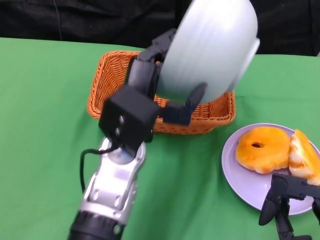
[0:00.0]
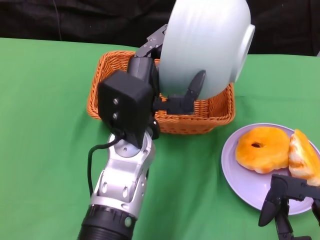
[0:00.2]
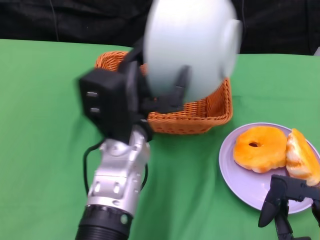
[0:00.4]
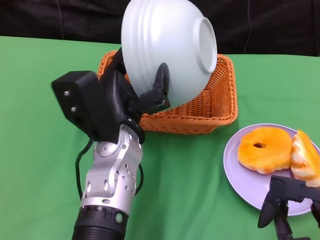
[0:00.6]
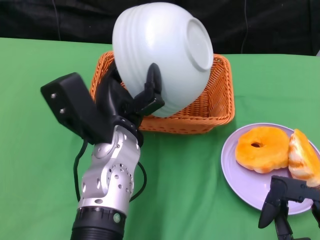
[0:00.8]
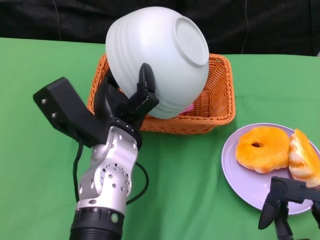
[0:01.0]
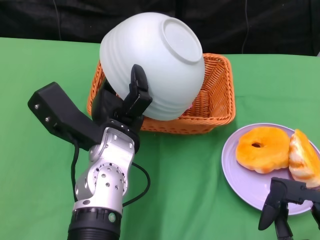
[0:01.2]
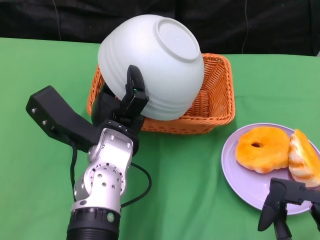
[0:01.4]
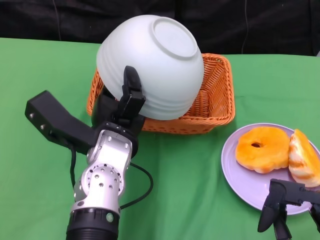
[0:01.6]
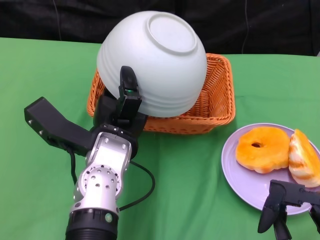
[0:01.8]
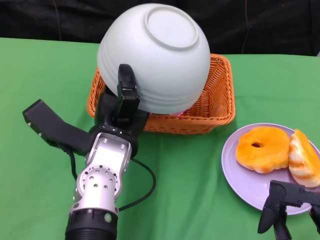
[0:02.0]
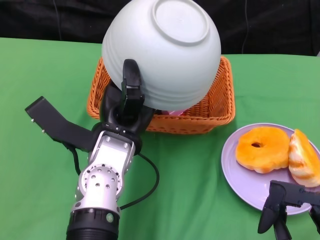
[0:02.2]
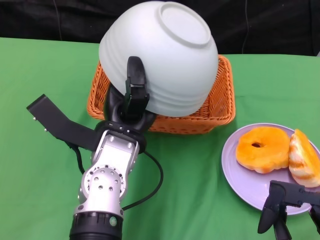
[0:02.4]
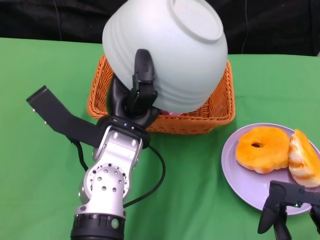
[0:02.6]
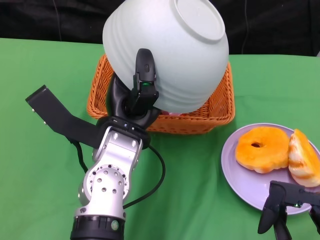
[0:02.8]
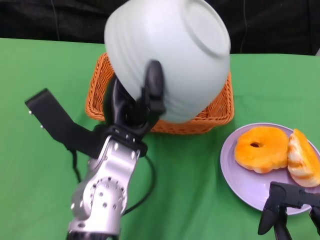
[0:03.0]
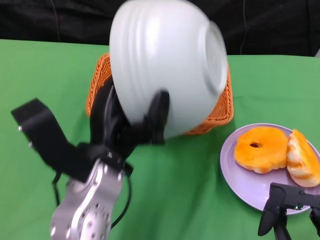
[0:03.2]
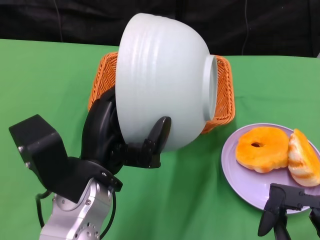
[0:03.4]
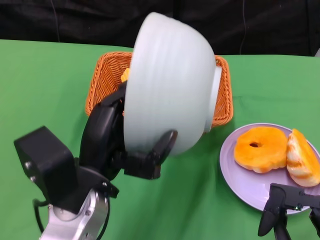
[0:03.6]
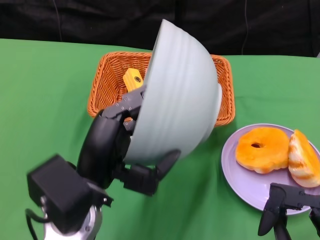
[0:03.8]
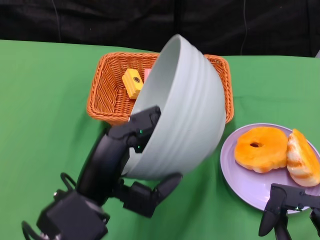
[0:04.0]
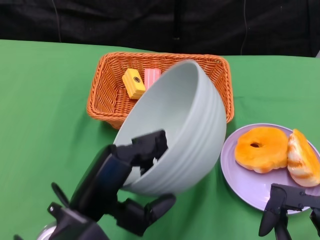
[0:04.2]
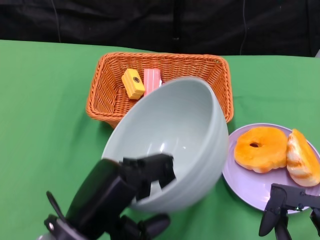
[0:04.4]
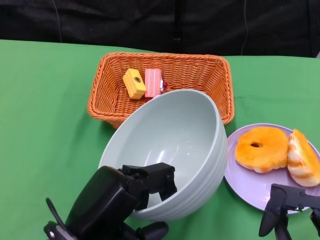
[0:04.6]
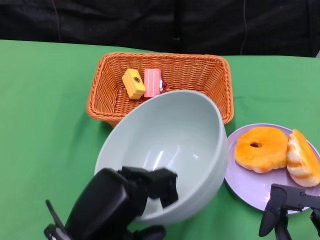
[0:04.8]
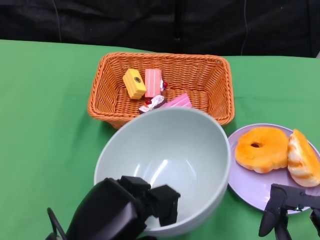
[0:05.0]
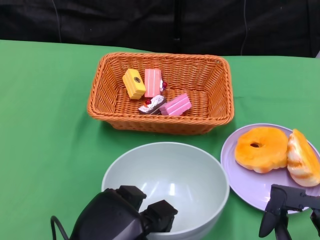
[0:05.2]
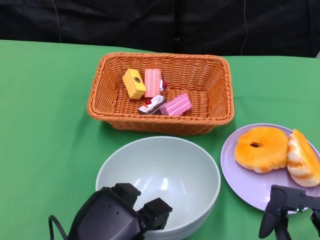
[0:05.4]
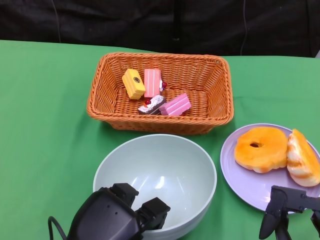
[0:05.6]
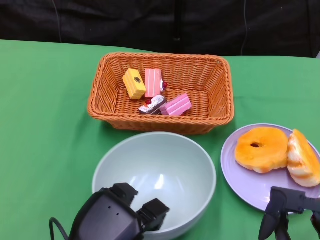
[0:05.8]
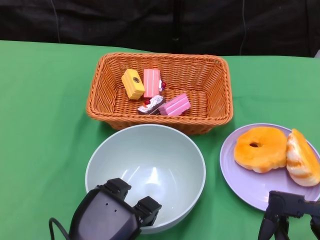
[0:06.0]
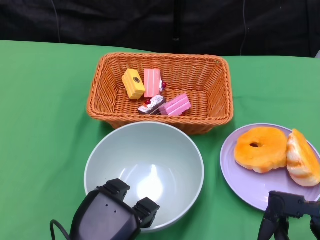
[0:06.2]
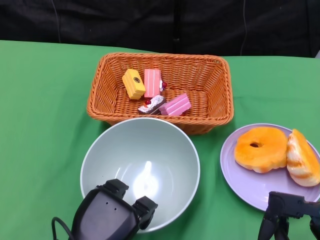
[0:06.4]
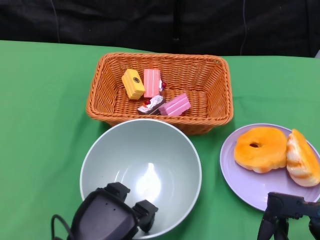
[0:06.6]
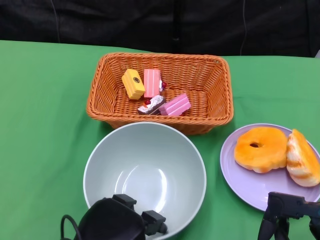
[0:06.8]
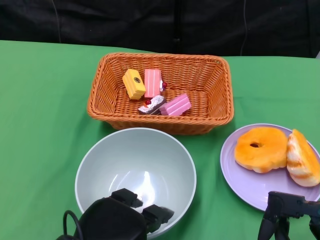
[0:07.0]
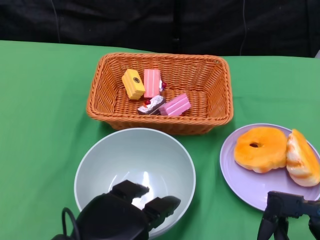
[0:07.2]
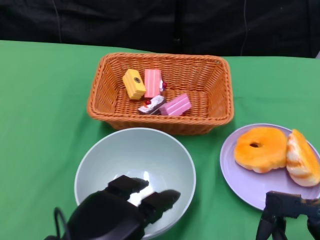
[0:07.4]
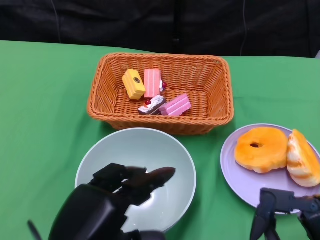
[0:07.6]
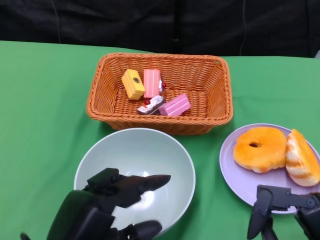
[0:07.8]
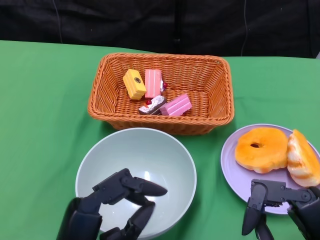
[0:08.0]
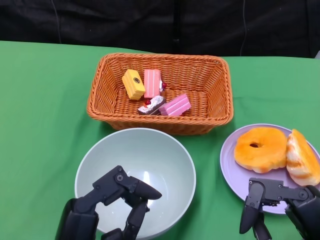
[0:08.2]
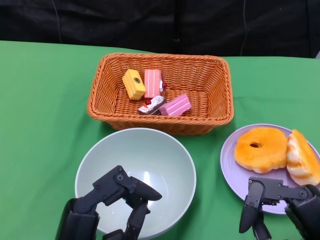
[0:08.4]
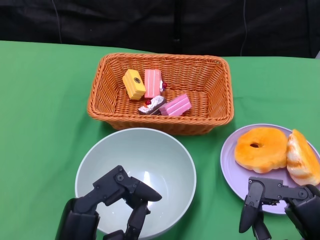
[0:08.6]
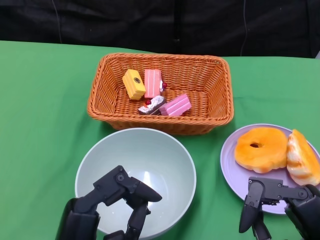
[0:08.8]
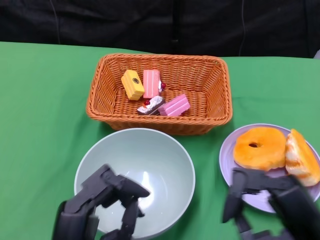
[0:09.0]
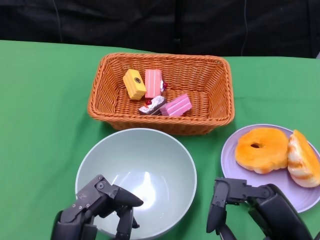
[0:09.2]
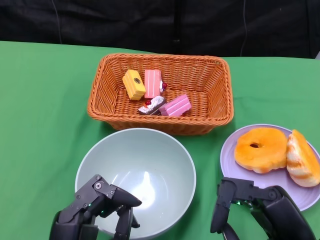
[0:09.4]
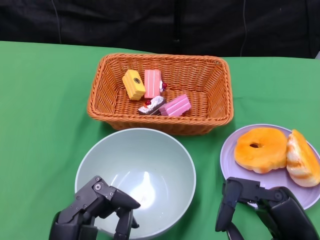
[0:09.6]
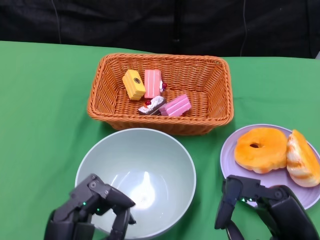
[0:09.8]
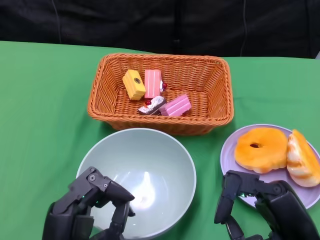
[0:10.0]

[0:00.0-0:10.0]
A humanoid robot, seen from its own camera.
Step, 0:00.0 to 0:03.0: Pour the cake into the basket with the left gripper.
Step, 0:03.2 to 0:07.0: Place the bowl on the table with the left gripper.
0:02.8 to 0:04.2: The left hand travels backward and to the left by roughly 10 cm.
0:04.2 to 0:05.8: The left hand shifts about 5 cm downward.
0:08.6 to 0:10.0: The hands move only a little.

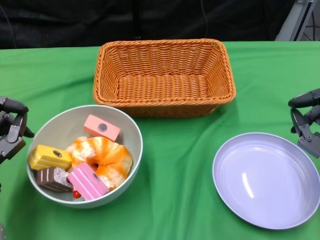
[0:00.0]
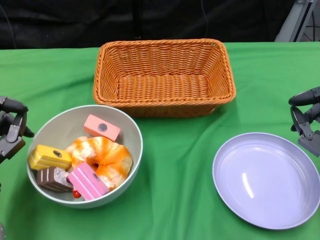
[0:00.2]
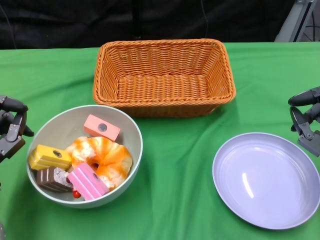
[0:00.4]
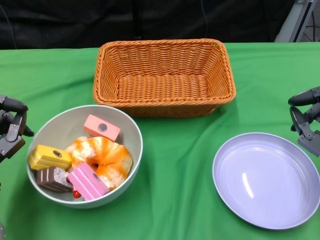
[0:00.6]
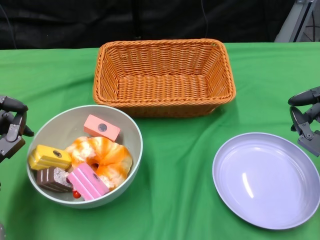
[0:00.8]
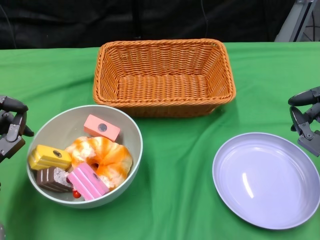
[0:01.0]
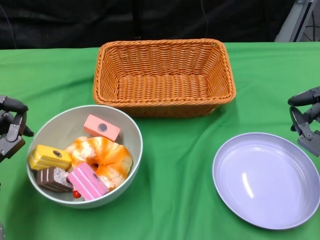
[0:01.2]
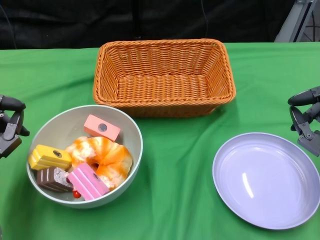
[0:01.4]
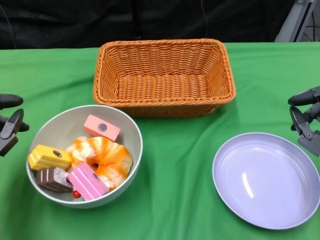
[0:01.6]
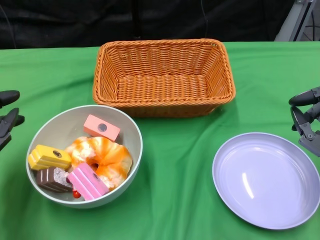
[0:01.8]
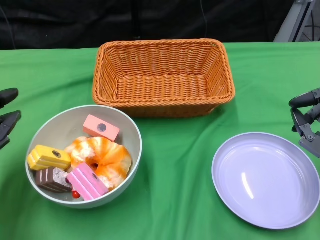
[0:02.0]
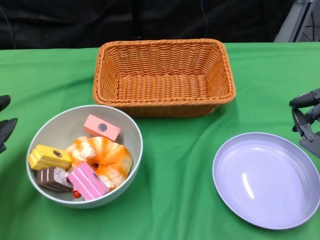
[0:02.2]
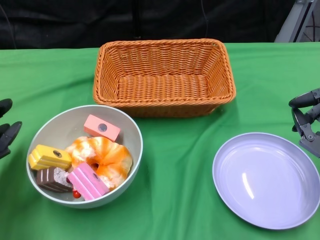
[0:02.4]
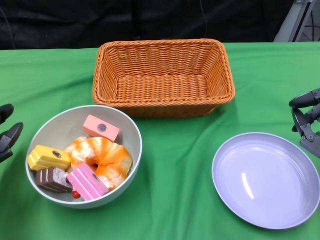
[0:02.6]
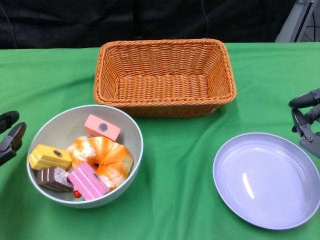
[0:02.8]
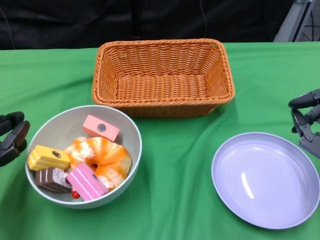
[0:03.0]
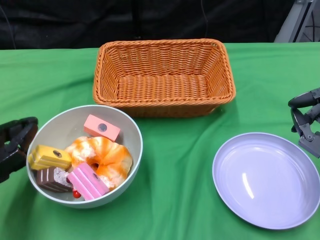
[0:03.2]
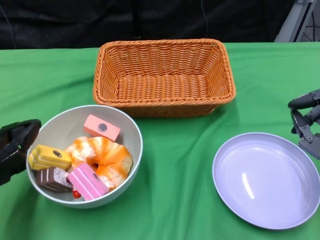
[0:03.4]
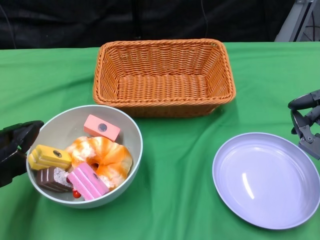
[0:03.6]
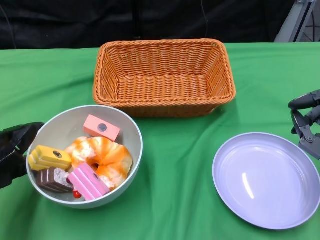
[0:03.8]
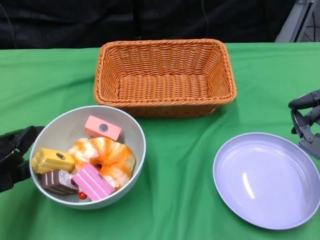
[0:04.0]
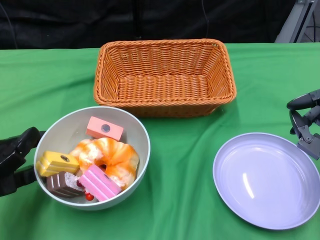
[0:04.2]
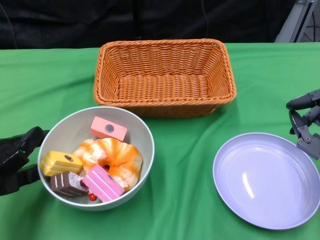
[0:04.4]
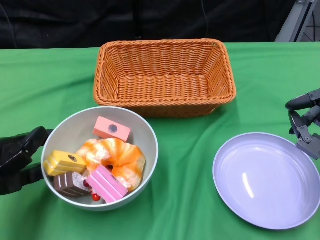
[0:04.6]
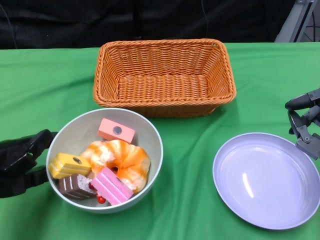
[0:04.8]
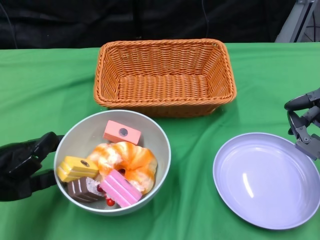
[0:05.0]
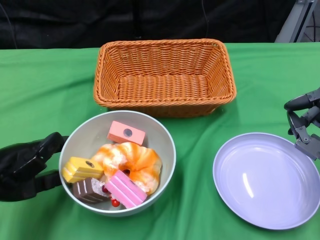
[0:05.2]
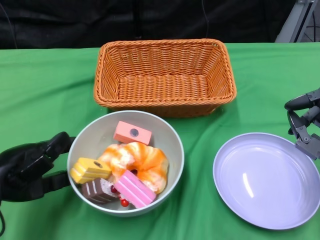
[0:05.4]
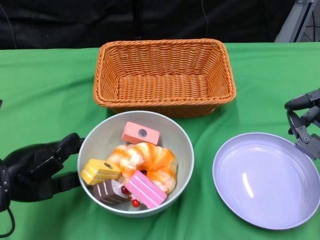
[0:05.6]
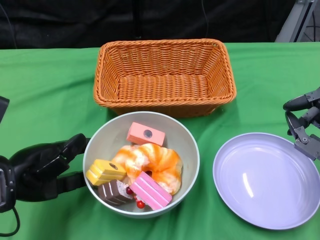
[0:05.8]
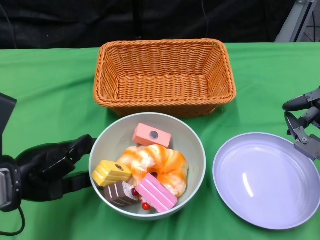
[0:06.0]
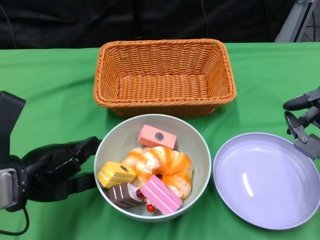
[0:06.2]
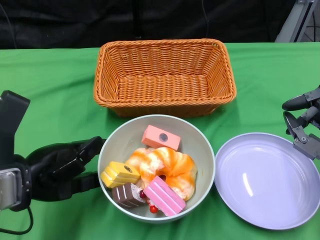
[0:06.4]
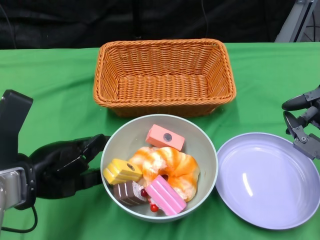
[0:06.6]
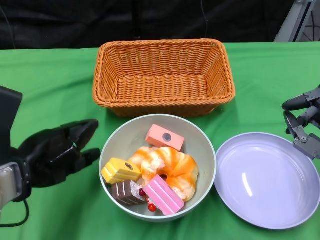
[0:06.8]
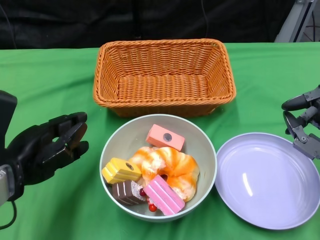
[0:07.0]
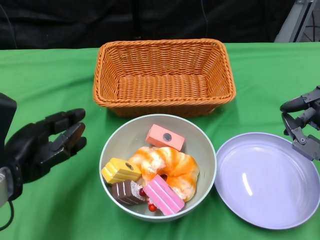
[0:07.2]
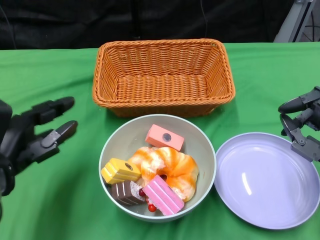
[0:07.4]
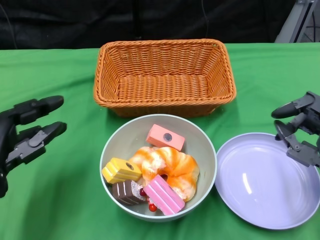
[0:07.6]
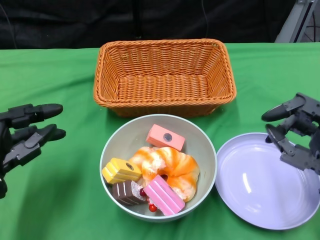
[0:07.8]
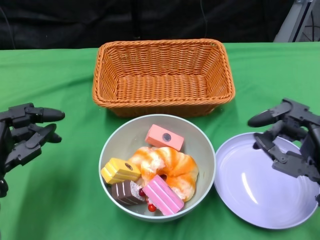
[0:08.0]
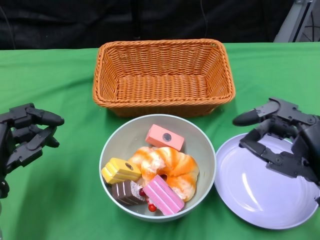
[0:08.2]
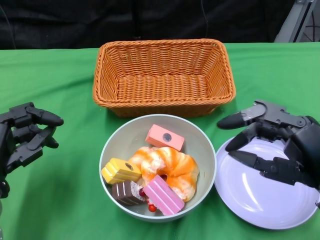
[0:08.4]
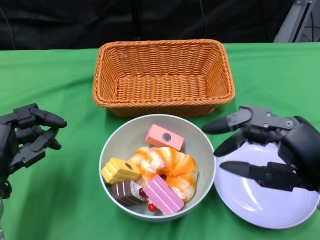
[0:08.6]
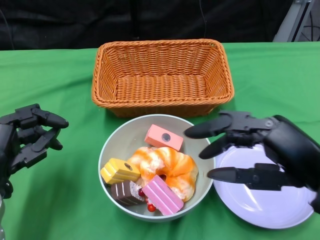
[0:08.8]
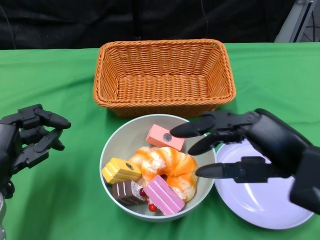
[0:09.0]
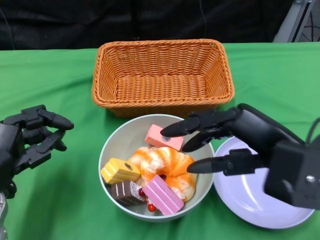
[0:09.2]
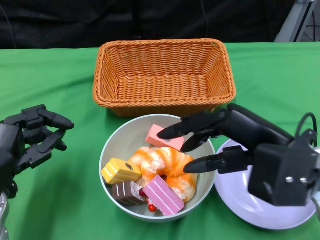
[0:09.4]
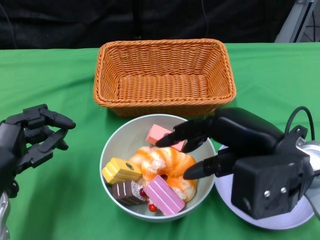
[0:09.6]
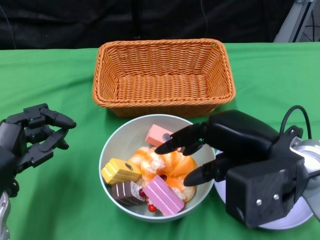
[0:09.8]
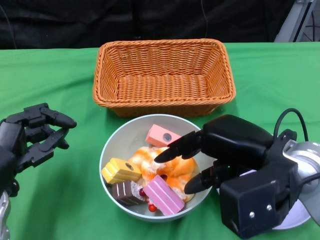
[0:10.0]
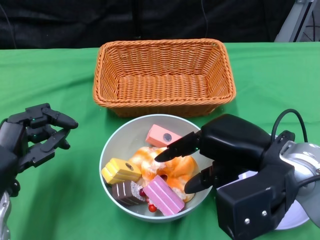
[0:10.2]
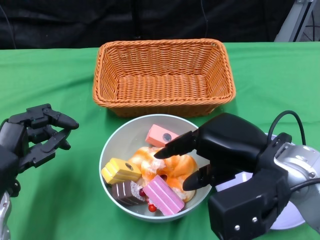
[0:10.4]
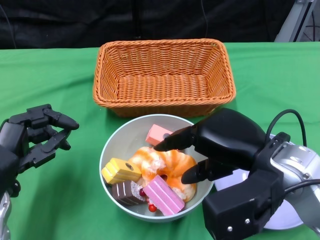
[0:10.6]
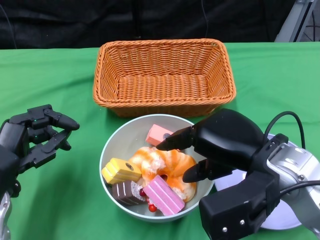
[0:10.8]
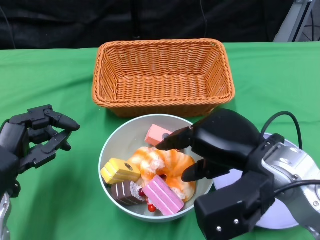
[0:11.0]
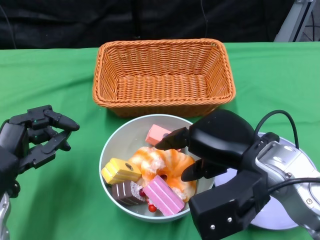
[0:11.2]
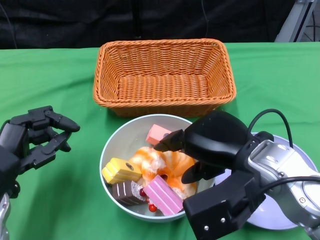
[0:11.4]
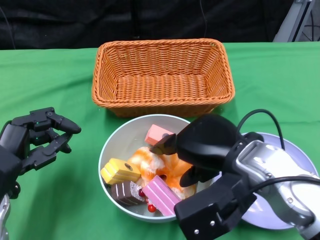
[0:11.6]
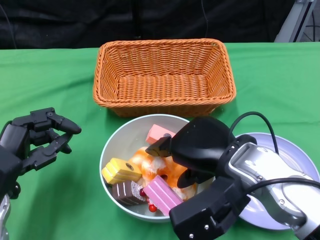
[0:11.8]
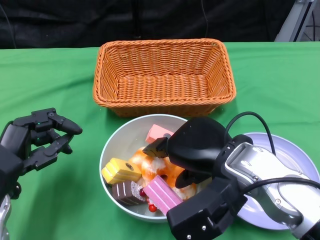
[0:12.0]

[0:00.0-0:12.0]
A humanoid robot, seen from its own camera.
Step, 0:00.0 to 0:07.6: Push the bowl to the center of the table using the left gripper.
0:04.4 to 0:06.0: The left hand moves to the right, roughly 5 cm.
0:07.6 to 0:09.0: The right hand heads upward and to the left, covering roughly 10 cm.
0:09.0 to 0:10.4: The right hand shifts by about 5 cm.
0:10.4 to 0:12.0: The right hand ends up some 5 cm from where it was.

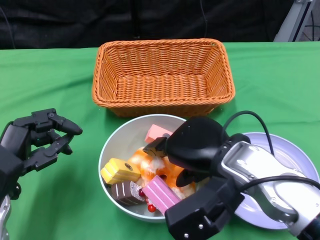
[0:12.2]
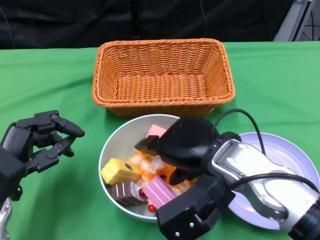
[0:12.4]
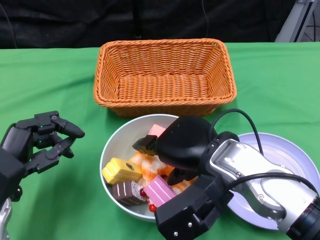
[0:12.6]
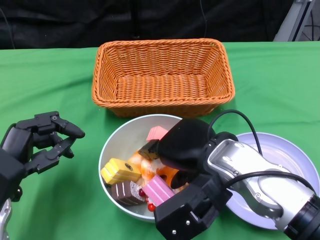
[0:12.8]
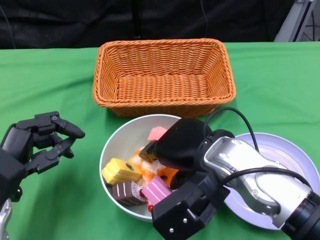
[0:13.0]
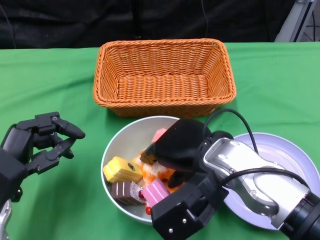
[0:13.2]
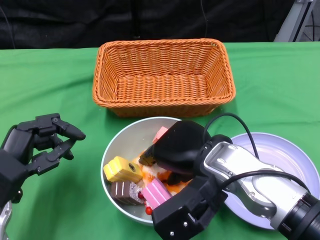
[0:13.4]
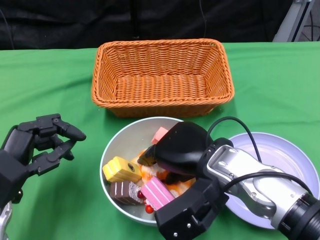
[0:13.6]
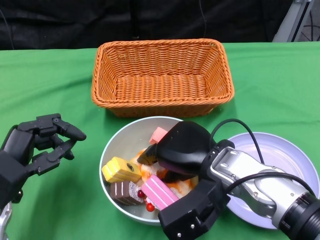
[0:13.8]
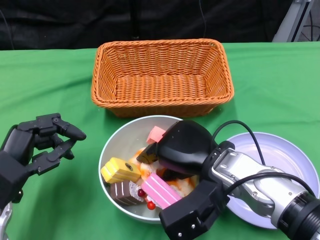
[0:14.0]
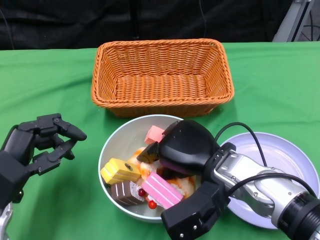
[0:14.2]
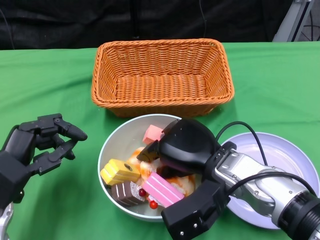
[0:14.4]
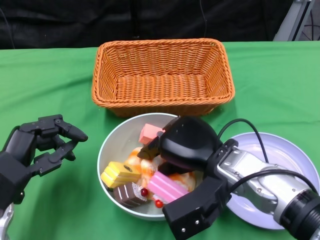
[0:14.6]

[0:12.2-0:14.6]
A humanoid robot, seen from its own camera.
0:13.4 to 0:14.6: There are only small adjustments of the hands.
